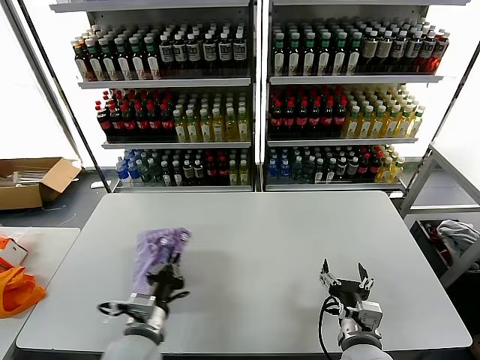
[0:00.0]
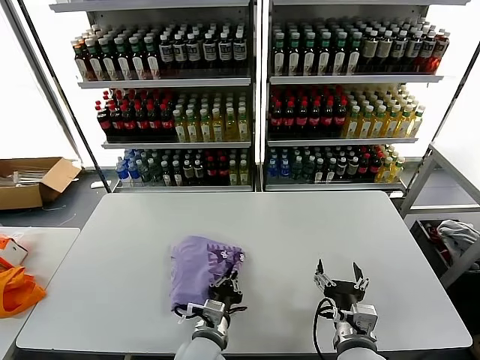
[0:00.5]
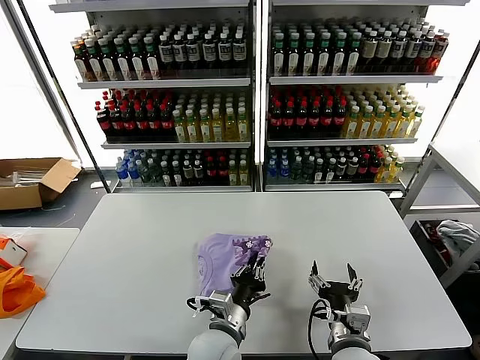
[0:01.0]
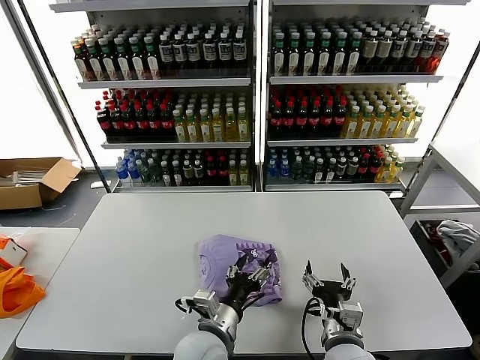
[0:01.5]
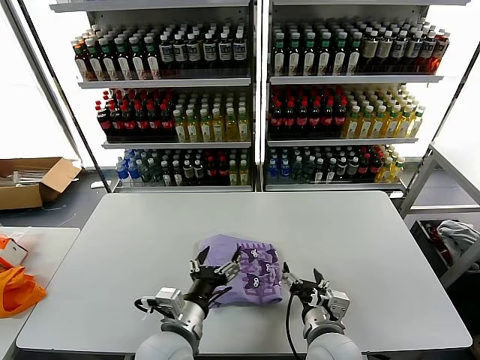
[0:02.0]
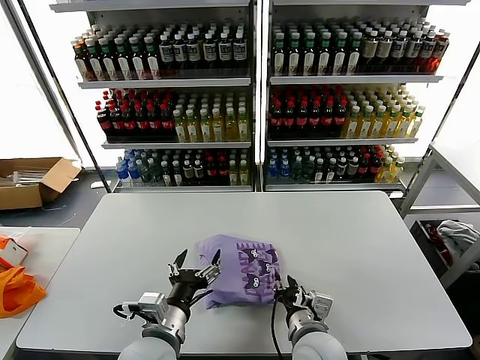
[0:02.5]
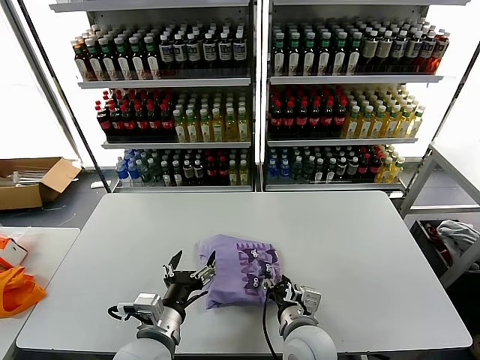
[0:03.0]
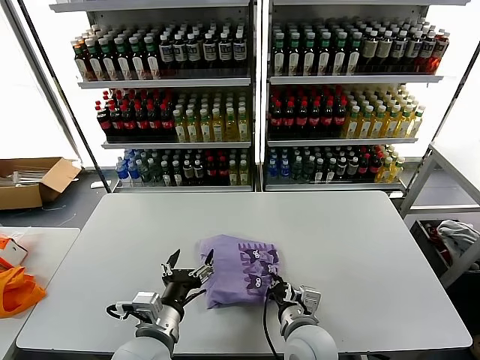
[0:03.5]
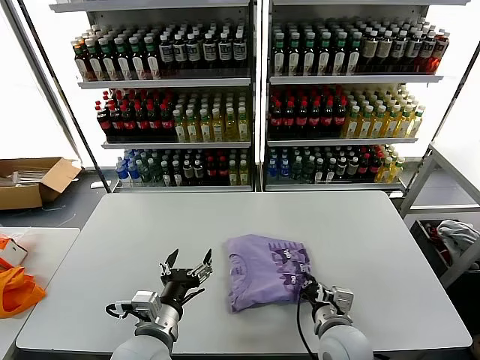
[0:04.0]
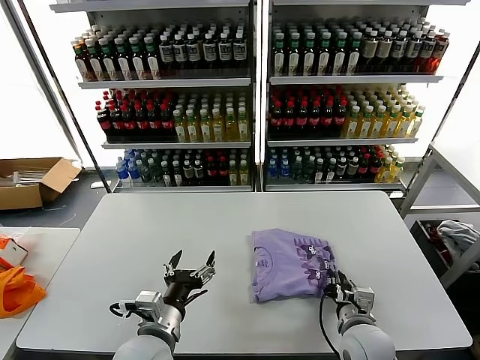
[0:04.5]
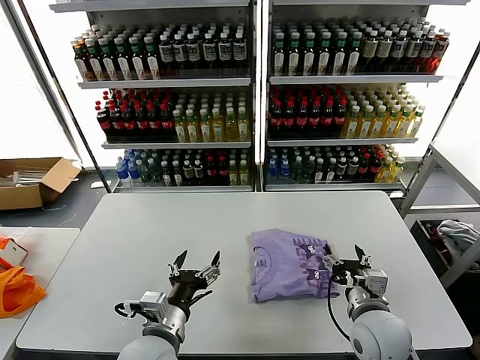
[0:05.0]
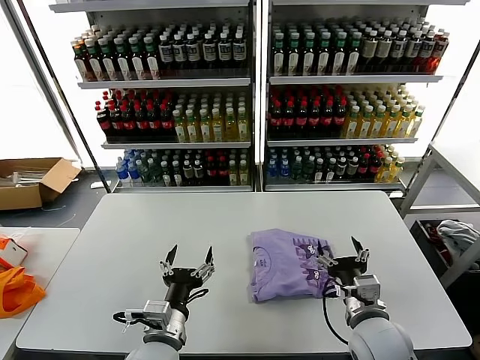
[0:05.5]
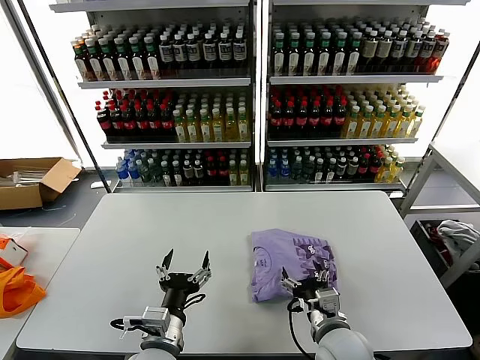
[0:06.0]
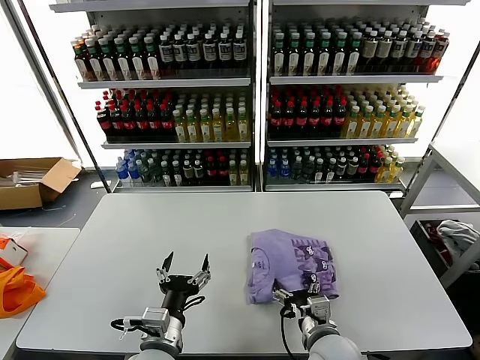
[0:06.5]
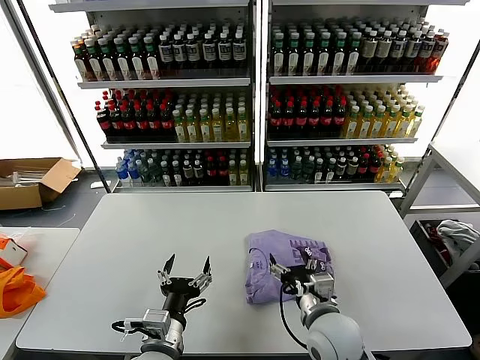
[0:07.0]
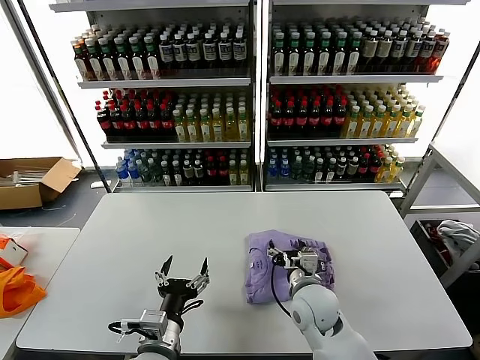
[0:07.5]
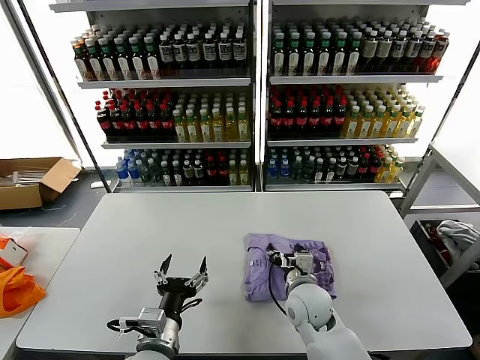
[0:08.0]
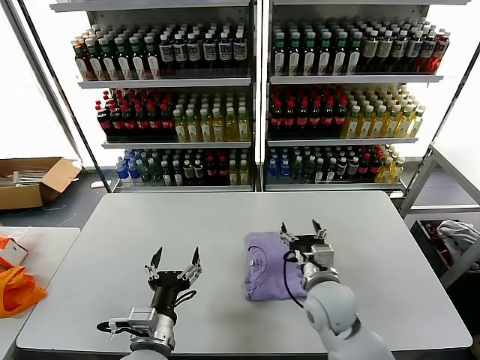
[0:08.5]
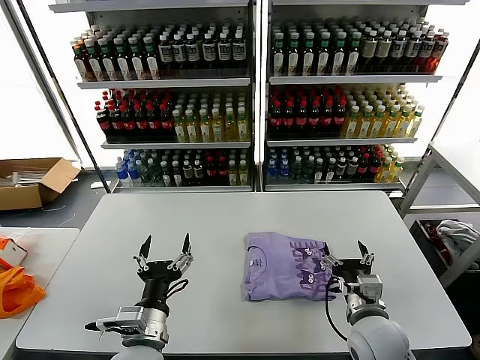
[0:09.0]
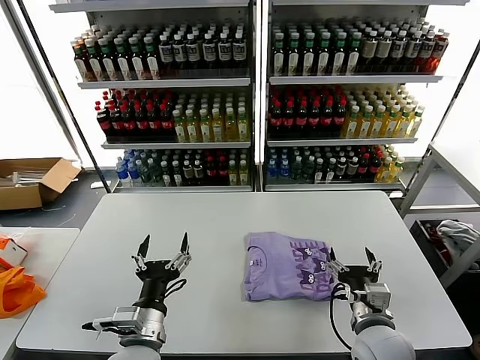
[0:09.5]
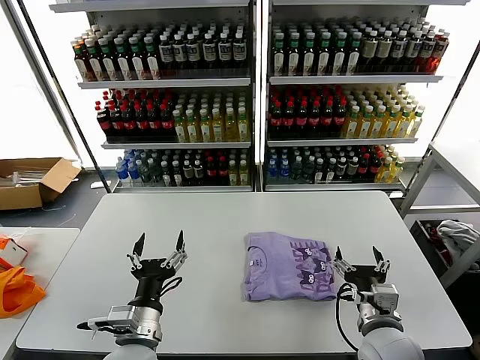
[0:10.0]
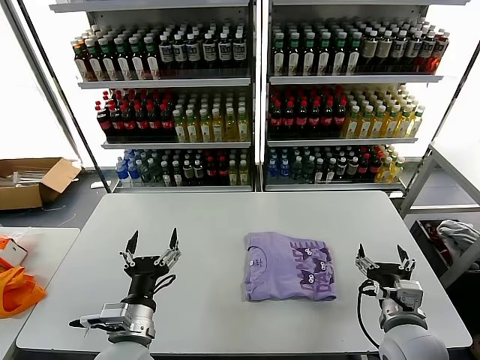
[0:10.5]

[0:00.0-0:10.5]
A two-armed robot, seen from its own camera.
Task of the whole recording: fold and organize the clothes.
Step, 0:02.0 to 0:08.0: Drag the clothes to the center of the table.
0:00.0 to 0:02.0: The left gripper heads to the right, covering roughly 10 cm, and opens its fingers. The right gripper heads to the left, covering approximately 5 cm.
0:02.0 to 0:04.0: The right gripper closes up.
0:04.0 to 0:06.5: The right gripper goes to the right and returns, about 5 cm each way, and opens up.
0:06.5 to 0:08.5: The right gripper travels forward by some 10 cm.
0:08.5 to 0:10.5: The right gripper travels to the right and backward by some 15 cm.
